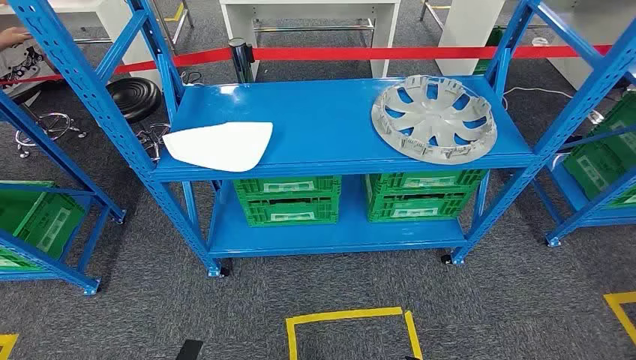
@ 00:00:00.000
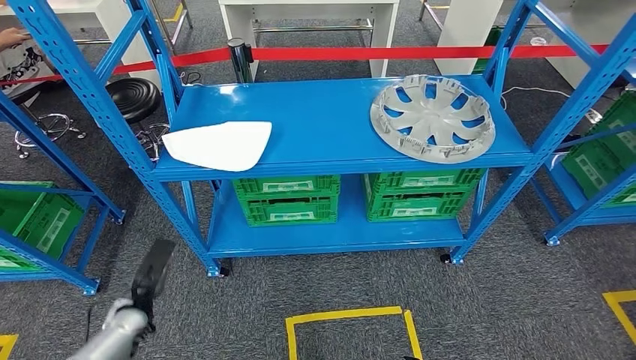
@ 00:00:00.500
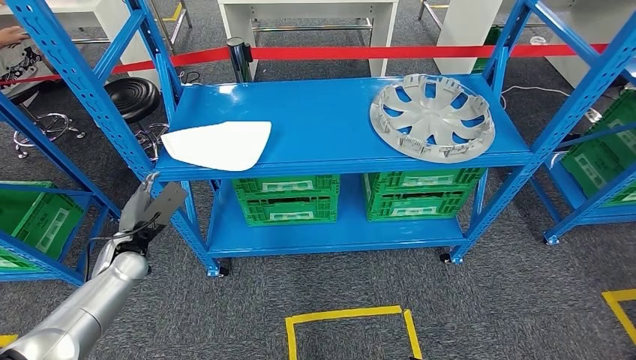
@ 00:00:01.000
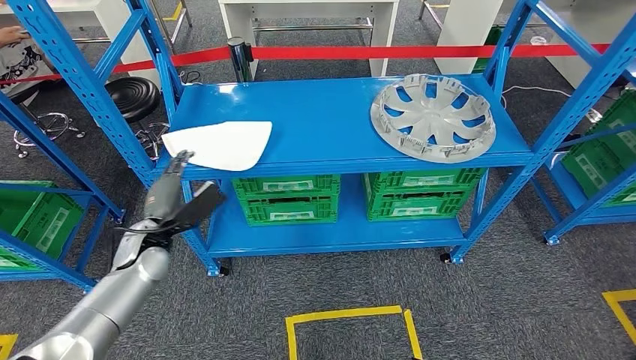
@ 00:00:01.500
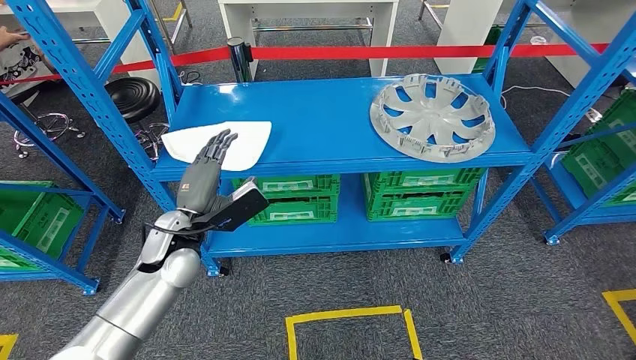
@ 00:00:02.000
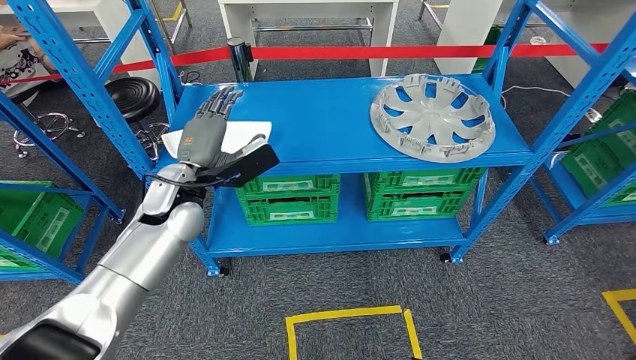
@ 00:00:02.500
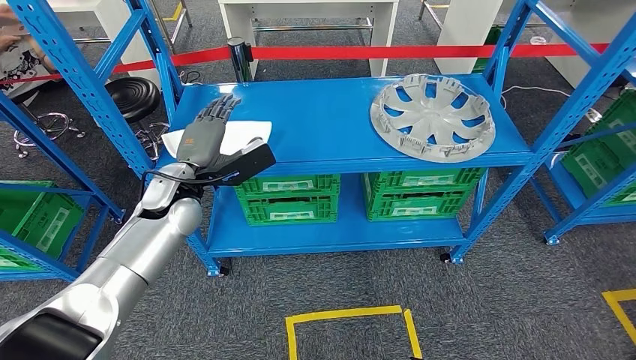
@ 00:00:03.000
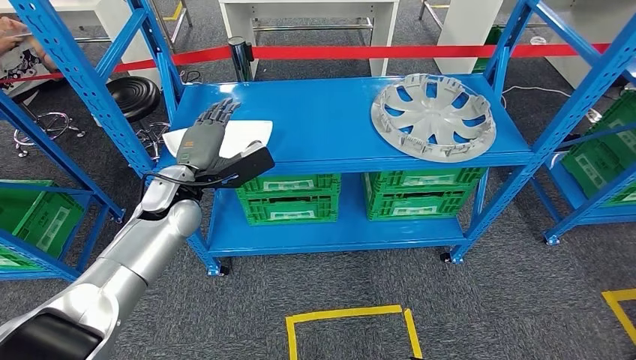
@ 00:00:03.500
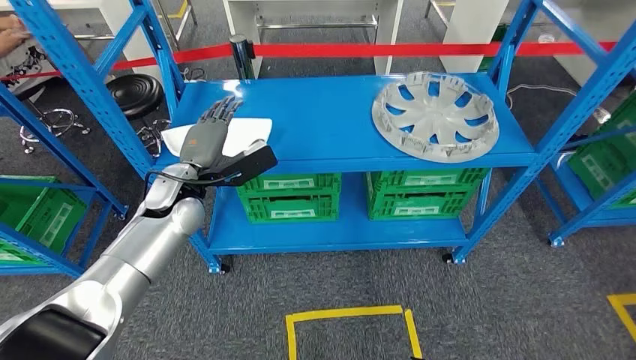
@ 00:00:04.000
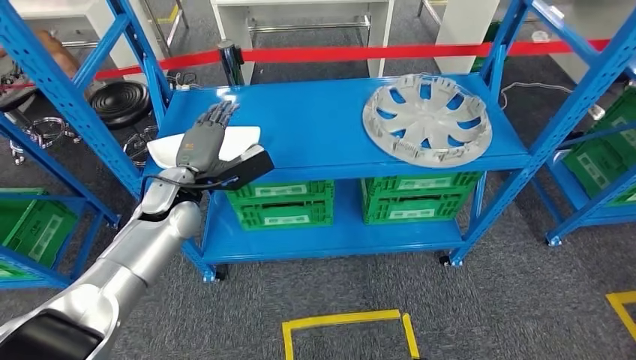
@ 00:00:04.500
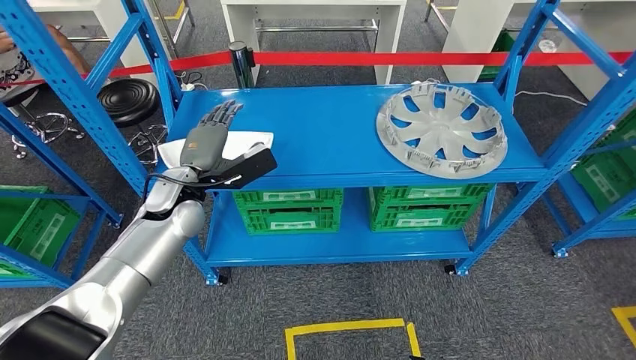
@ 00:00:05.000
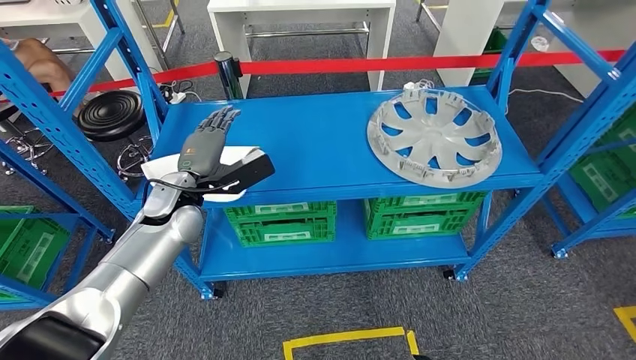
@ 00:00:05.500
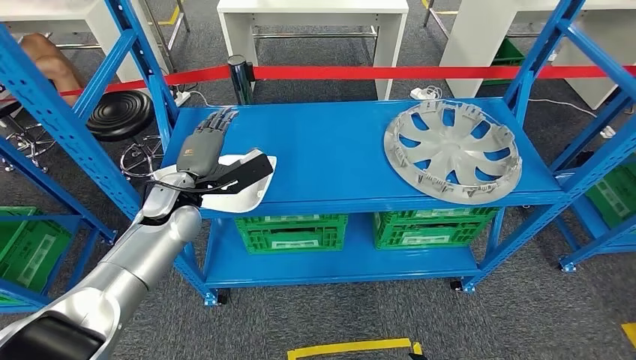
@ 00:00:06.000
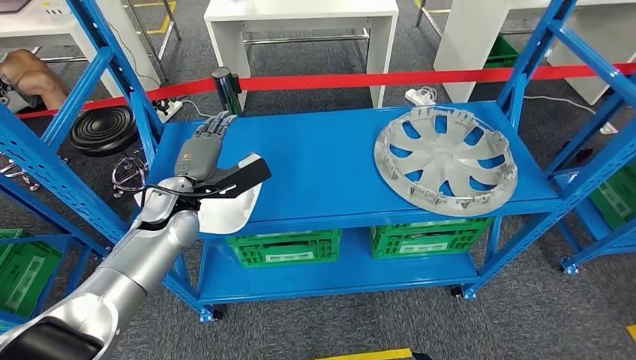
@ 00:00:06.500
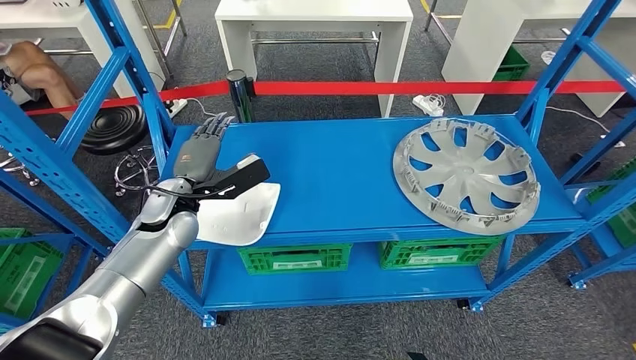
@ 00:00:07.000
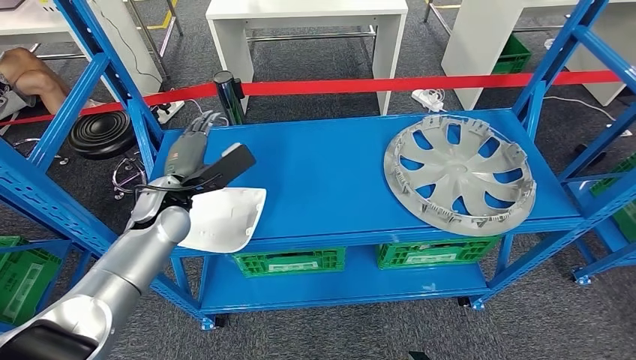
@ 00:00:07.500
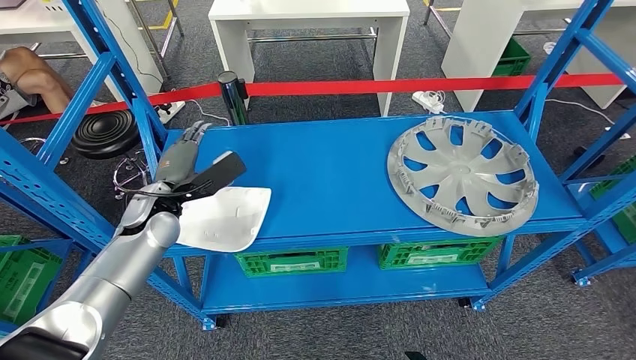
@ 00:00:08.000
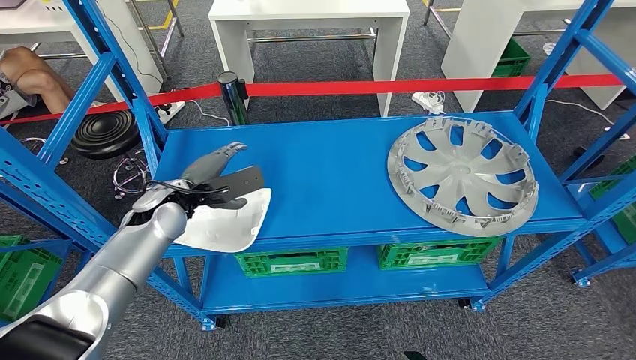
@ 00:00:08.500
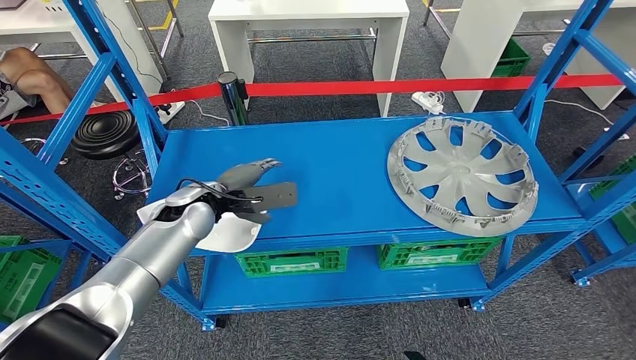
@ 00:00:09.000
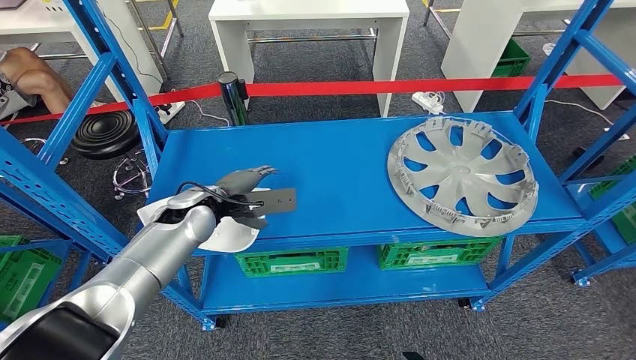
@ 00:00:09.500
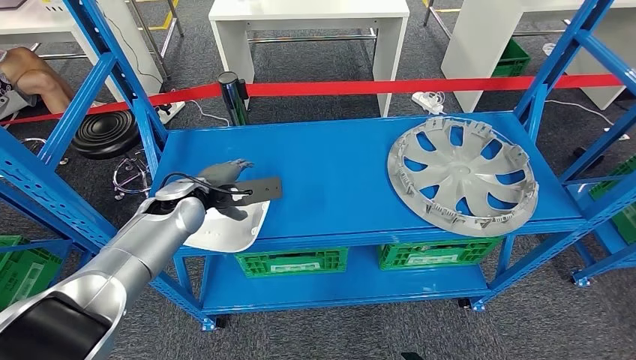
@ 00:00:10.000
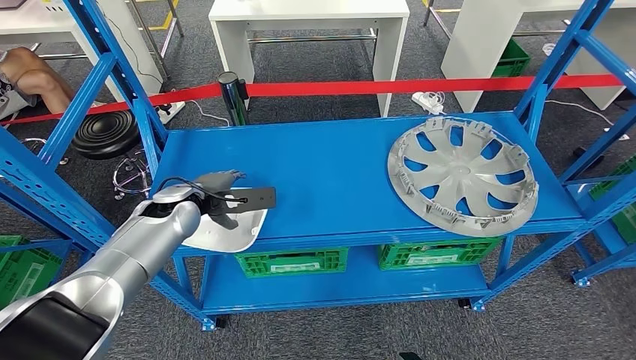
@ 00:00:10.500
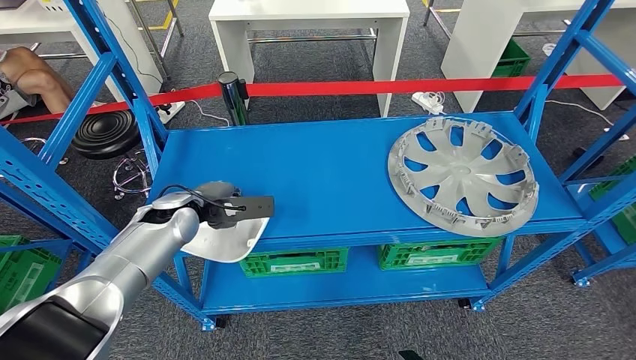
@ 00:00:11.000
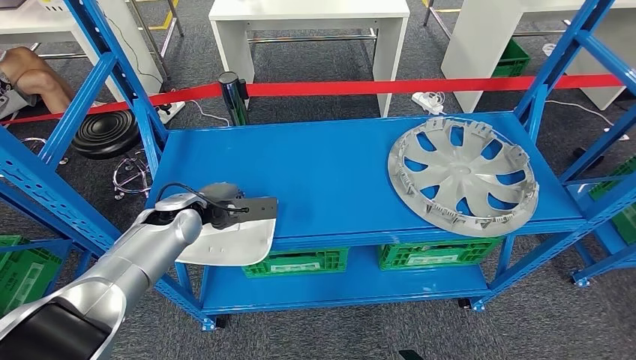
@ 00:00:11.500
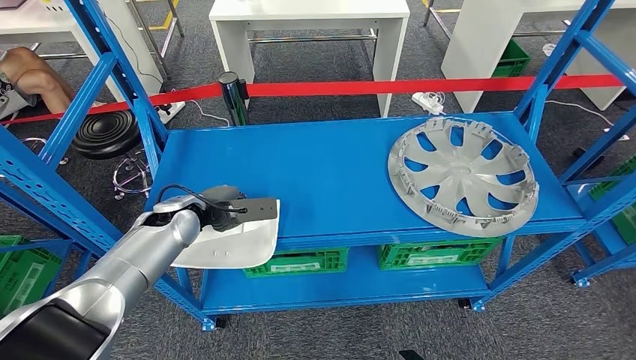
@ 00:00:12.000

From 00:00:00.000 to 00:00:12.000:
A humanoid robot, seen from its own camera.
From 00:00:10.000 to 00:00:12.000: The hands make only small movements.

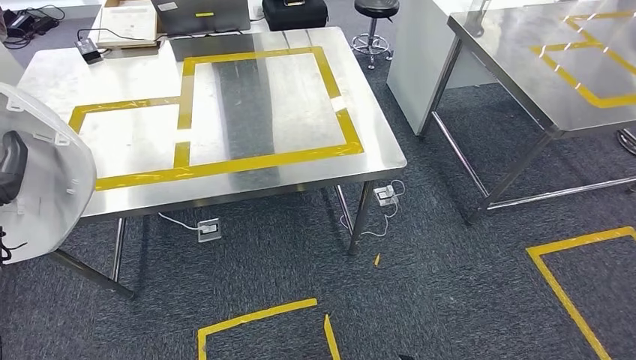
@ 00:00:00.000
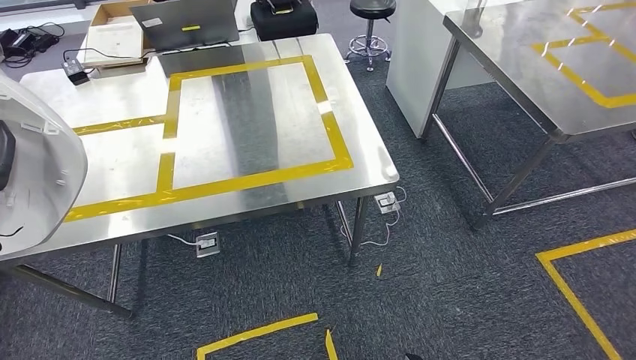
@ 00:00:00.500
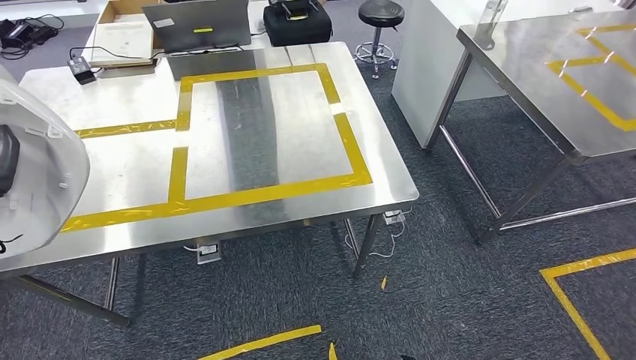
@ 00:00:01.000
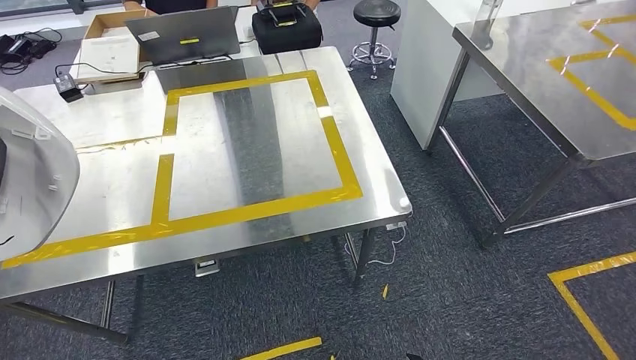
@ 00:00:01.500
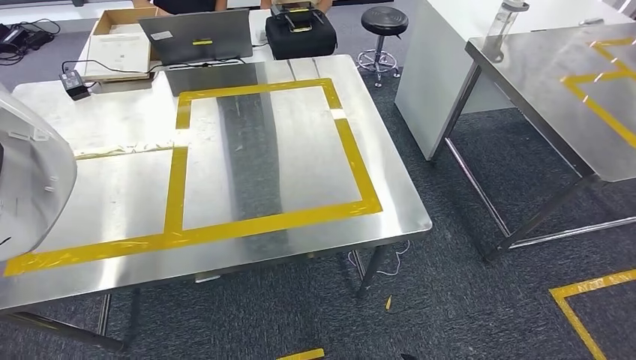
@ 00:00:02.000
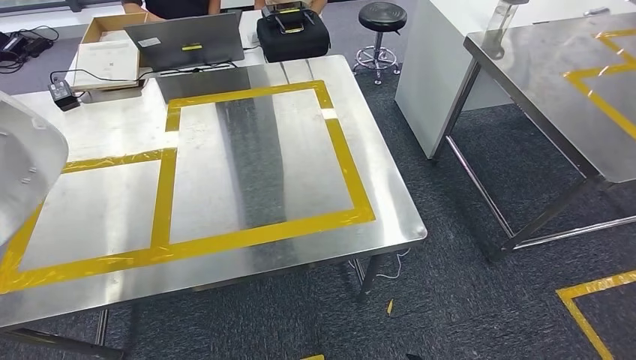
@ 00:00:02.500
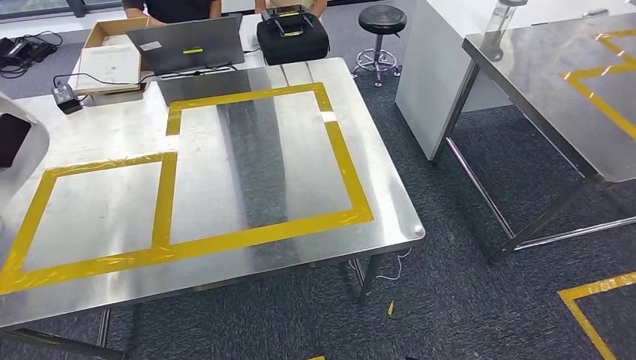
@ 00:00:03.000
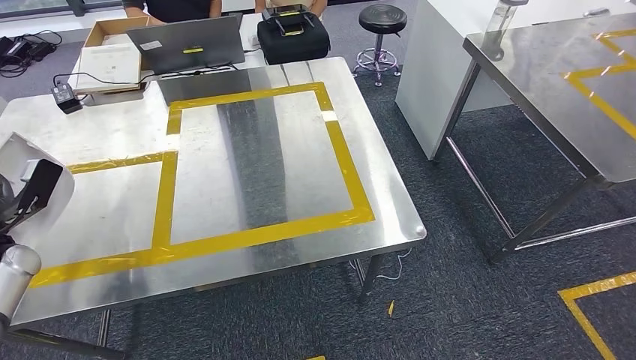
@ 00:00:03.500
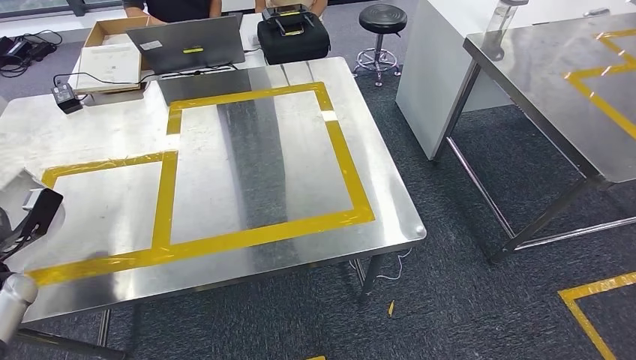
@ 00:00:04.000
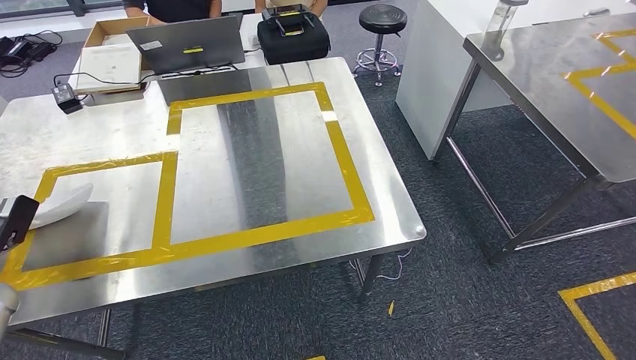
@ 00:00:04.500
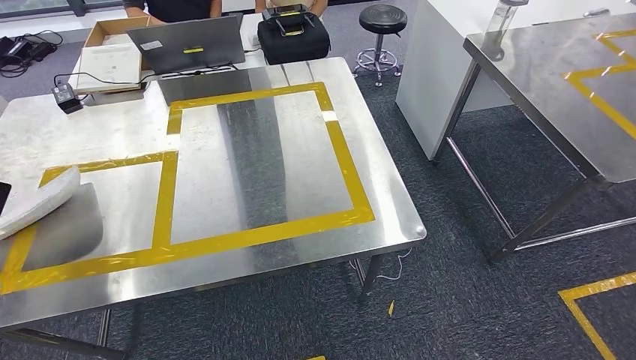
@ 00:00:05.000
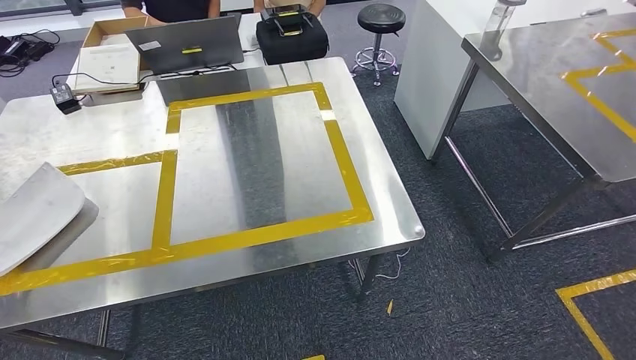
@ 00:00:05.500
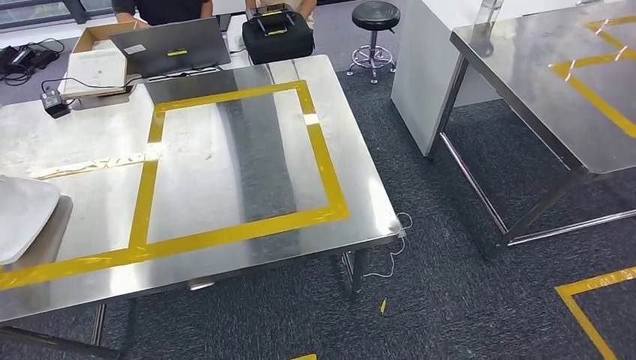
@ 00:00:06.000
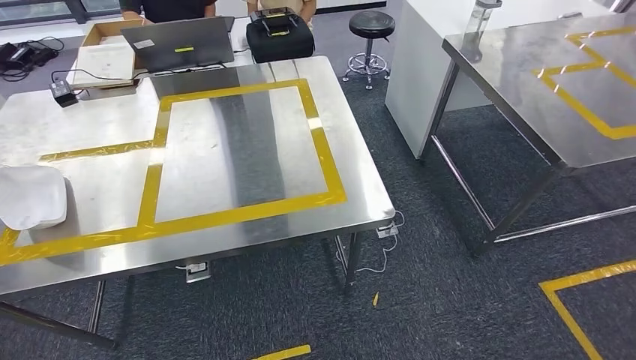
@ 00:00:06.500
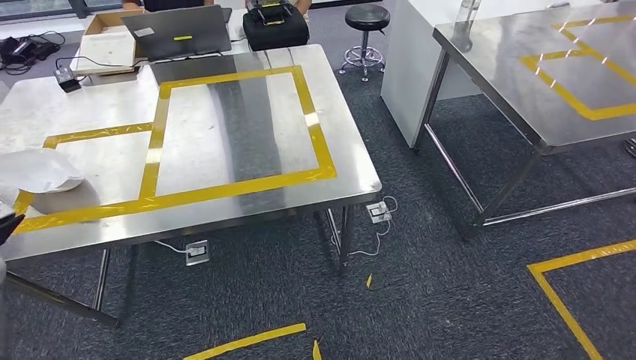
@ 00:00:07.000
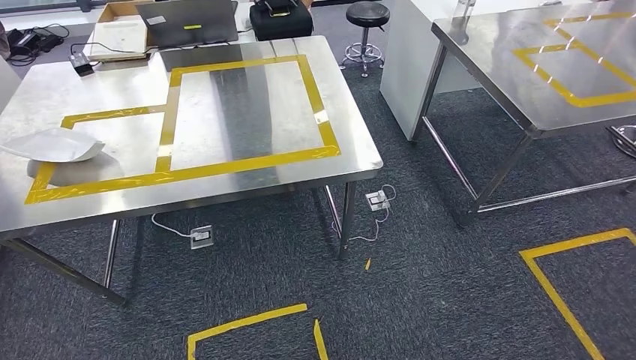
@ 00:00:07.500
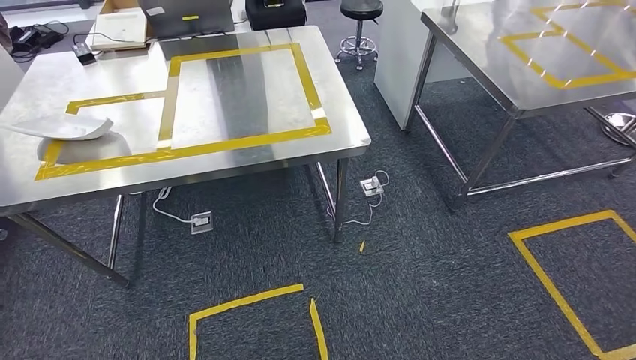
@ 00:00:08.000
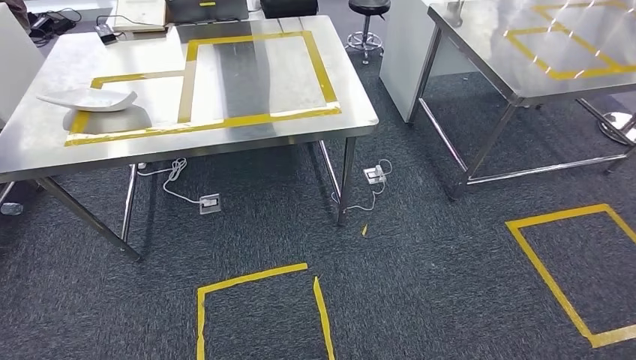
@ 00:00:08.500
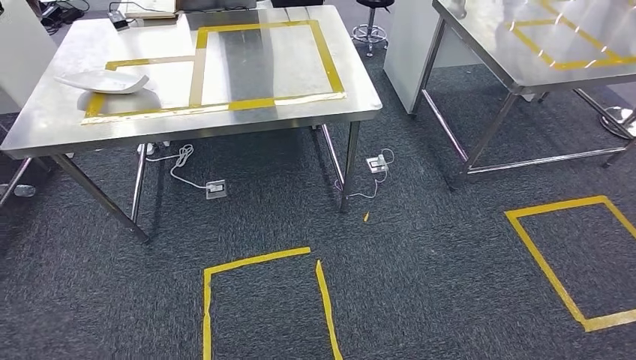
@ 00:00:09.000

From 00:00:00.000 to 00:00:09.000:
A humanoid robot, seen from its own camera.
Step, from 00:00:02.000 to 00:00:06.000: Insert the small parts into the corresponding holes on the workbench.
Step, from 00:00:06.500 to 00:00:09.000: Move to the initial position at the workbench.
